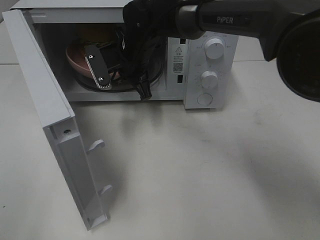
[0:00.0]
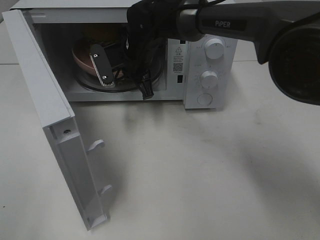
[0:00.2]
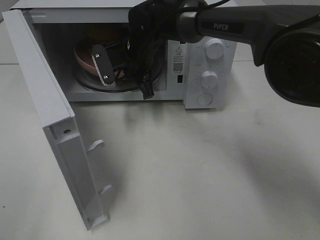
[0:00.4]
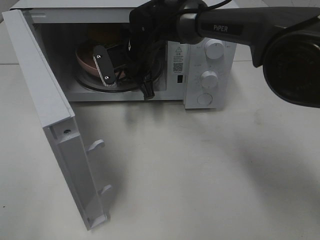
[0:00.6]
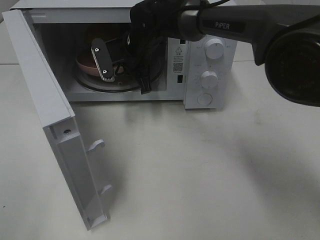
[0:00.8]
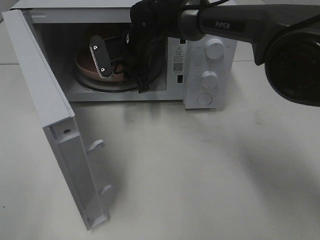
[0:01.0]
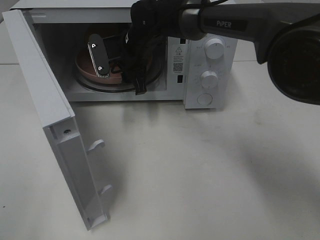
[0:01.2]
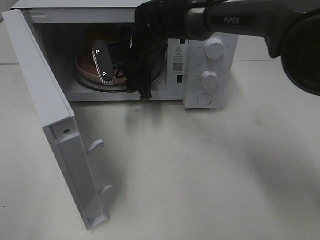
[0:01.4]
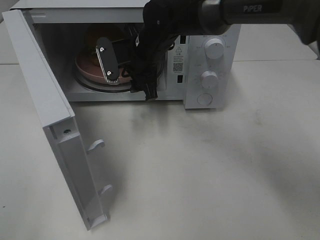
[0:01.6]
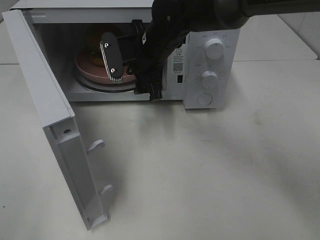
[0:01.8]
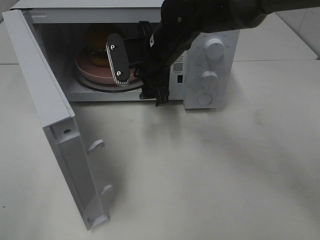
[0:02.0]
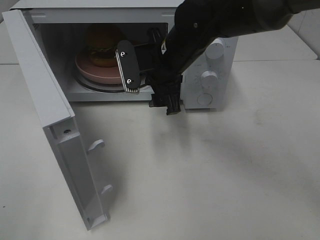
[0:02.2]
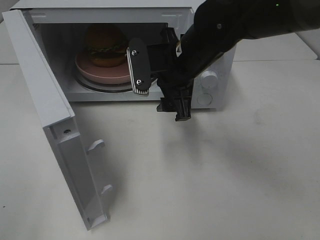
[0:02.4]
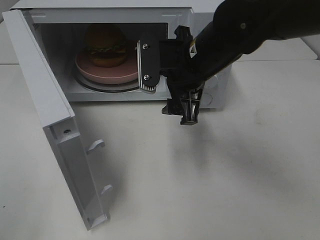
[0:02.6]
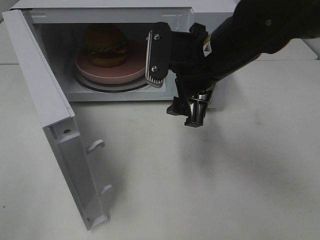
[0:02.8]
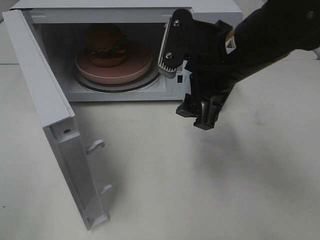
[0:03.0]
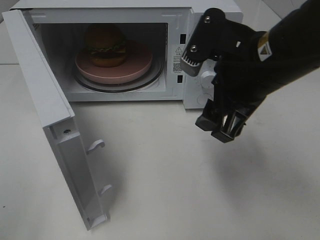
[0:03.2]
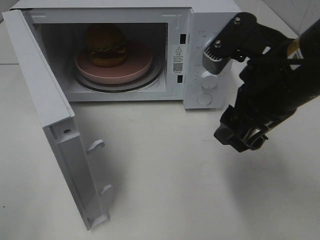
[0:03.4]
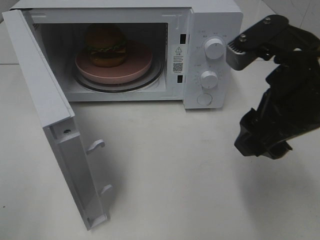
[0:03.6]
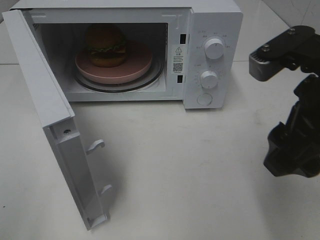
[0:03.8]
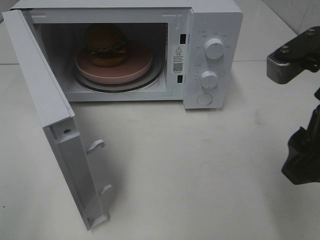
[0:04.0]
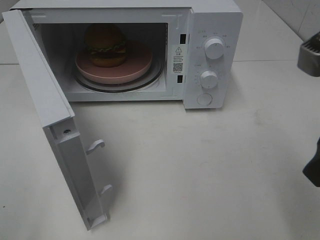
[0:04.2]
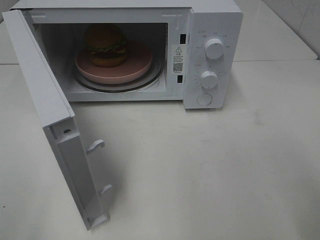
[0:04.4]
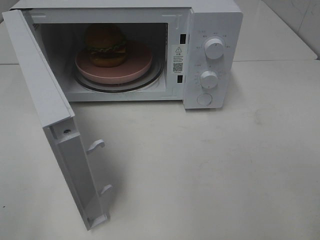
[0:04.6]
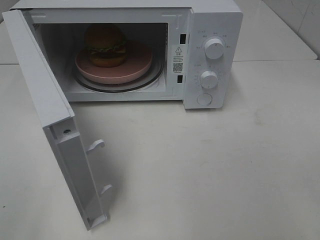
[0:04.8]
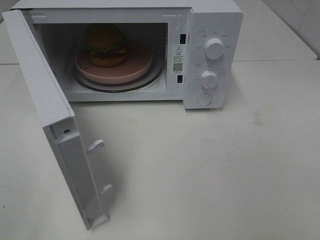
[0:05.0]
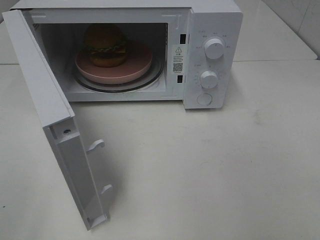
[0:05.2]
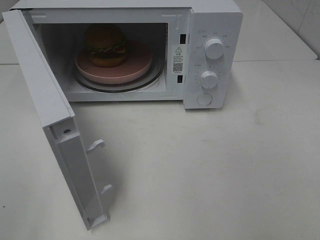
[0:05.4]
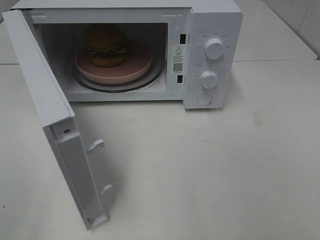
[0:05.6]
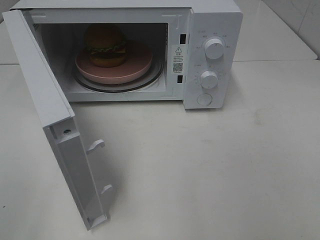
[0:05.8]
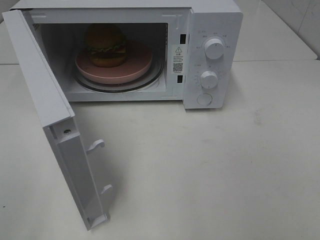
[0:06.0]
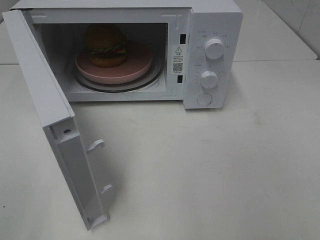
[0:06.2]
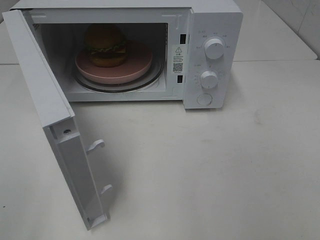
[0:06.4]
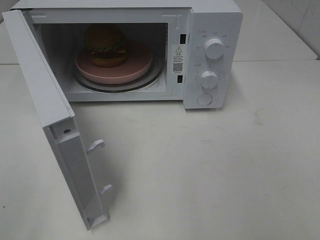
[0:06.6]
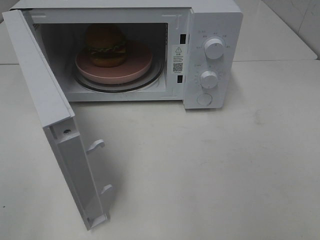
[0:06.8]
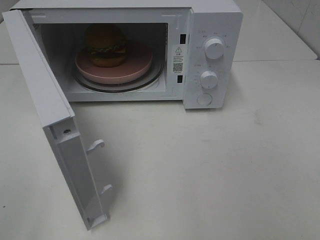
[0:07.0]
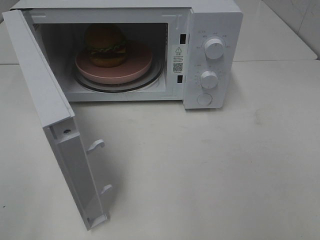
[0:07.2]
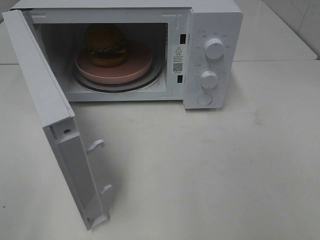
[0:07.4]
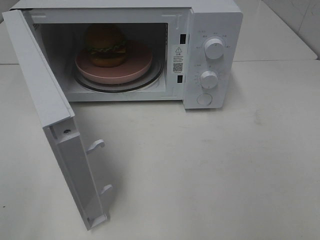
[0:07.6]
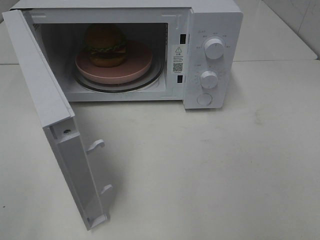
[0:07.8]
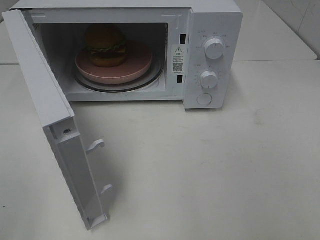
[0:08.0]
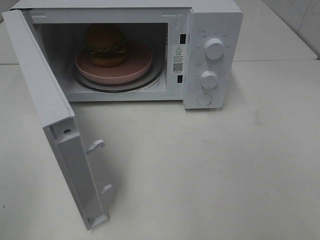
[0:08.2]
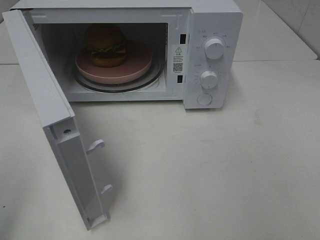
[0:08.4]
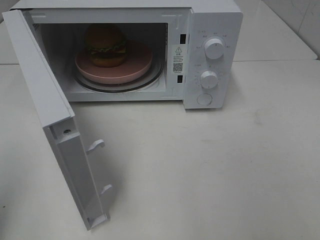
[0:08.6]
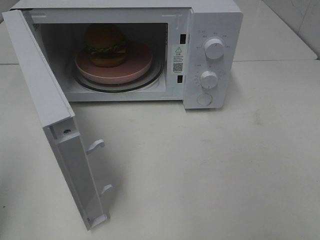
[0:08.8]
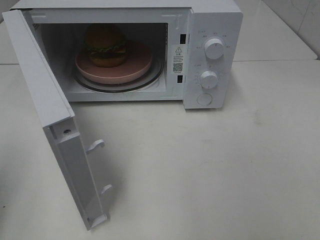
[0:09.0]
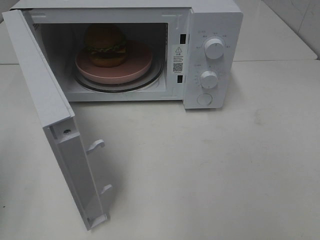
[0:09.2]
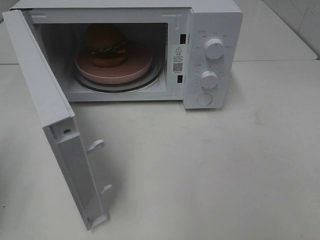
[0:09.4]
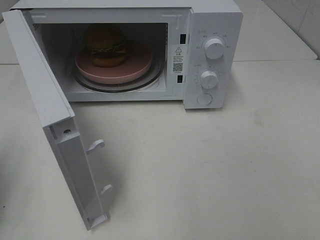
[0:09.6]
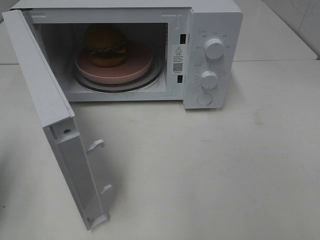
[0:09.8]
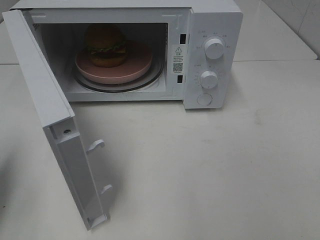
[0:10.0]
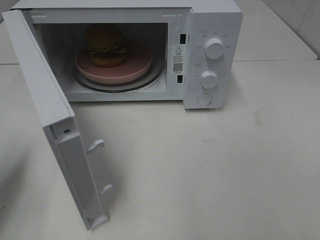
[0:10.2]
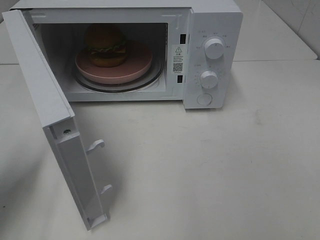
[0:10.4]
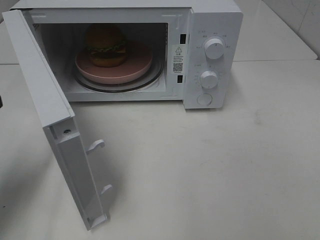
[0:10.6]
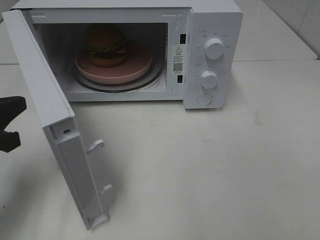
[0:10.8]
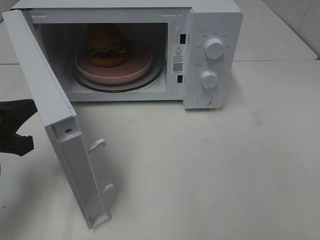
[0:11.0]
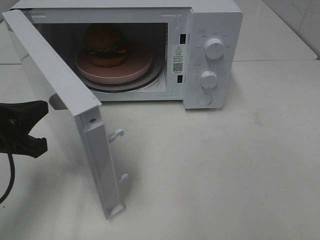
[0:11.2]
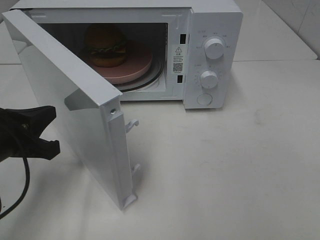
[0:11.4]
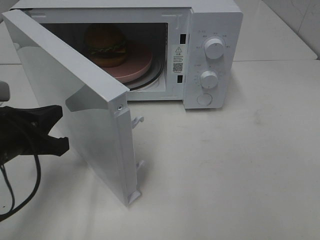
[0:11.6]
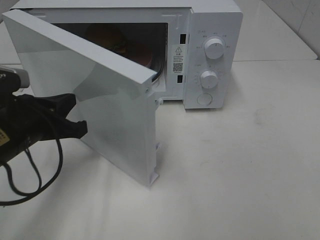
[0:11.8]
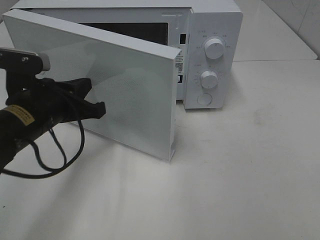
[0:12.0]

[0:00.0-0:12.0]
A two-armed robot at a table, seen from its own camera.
Task of the whole recording: Heat the burger.
0:00.0 to 0:01.6: The right gripper opens.
0:01.6 to 0:03.0: The right gripper travels backward, to the right and upward by some 20 cm.
0:03.0 to 0:04.4: The right gripper travels backward and to the right by about 20 cm.
0:04.4 to 0:06.0: The right gripper shifts roughly 15 cm backward and to the right.
0:06.0 to 0:07.6: Neither gripper changes place.
0:09.0 to 0:10.4: The left gripper travels forward and downward by roughly 10 cm.
0:10.4 to 0:12.0: The left gripper travels to the right and forward by roughly 15 cm.

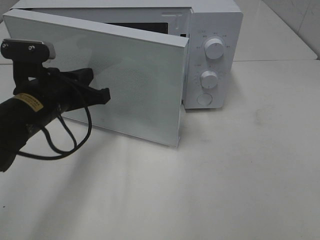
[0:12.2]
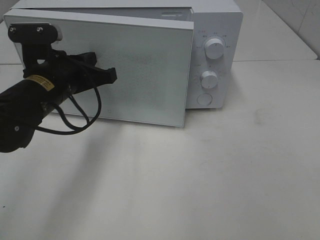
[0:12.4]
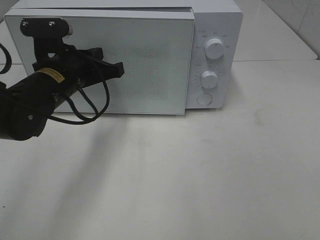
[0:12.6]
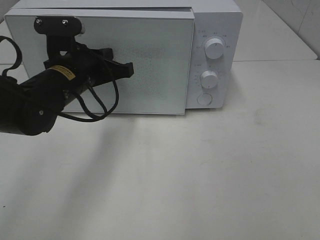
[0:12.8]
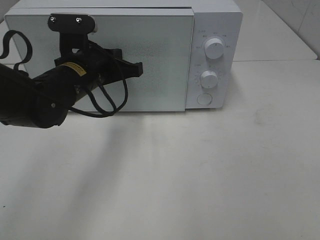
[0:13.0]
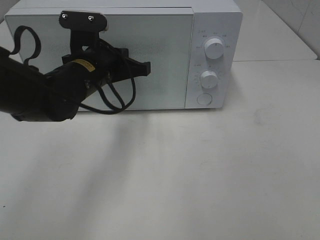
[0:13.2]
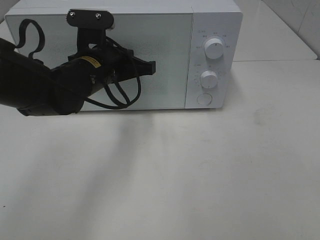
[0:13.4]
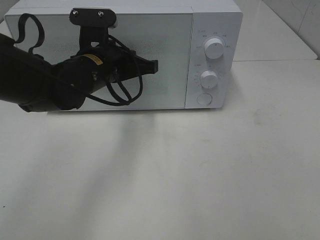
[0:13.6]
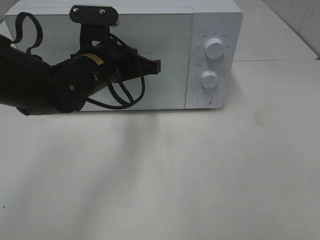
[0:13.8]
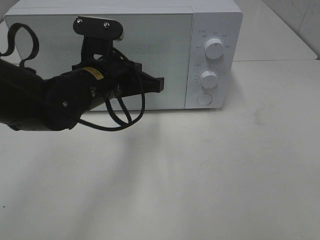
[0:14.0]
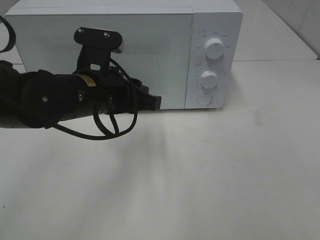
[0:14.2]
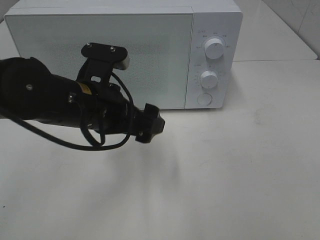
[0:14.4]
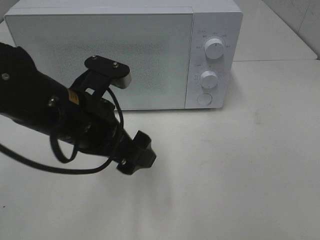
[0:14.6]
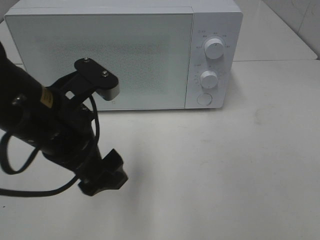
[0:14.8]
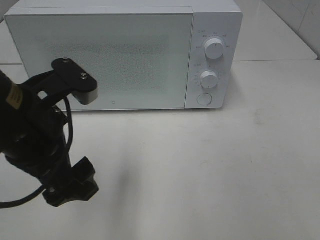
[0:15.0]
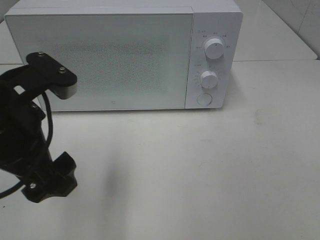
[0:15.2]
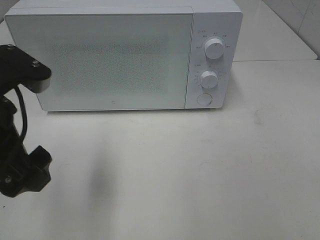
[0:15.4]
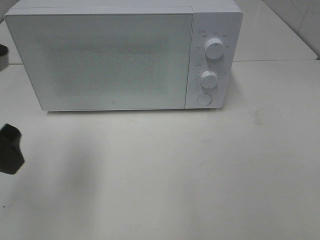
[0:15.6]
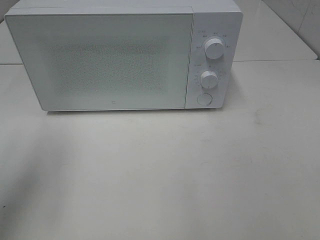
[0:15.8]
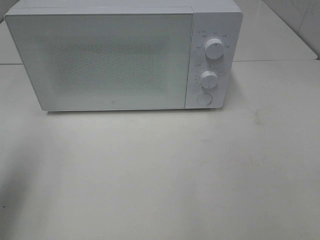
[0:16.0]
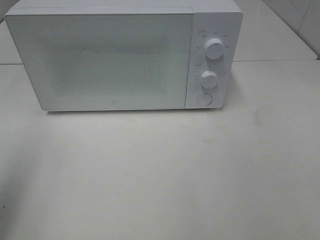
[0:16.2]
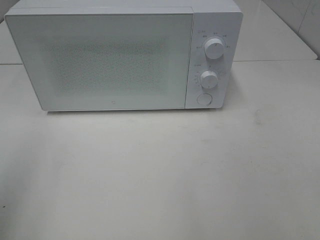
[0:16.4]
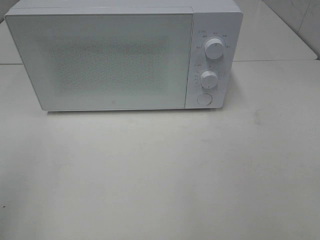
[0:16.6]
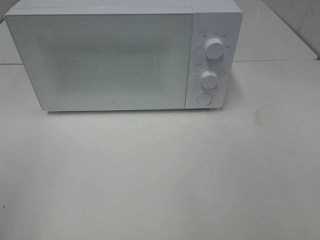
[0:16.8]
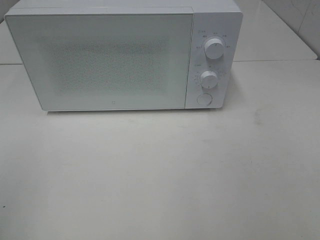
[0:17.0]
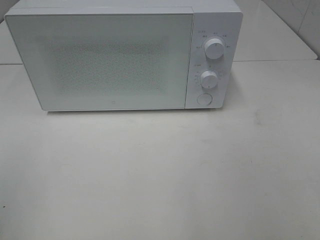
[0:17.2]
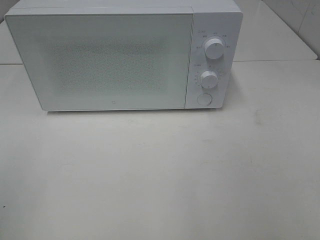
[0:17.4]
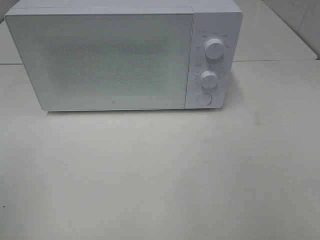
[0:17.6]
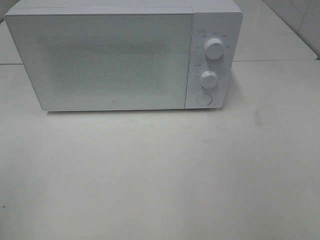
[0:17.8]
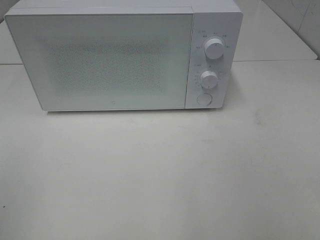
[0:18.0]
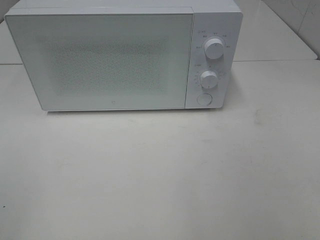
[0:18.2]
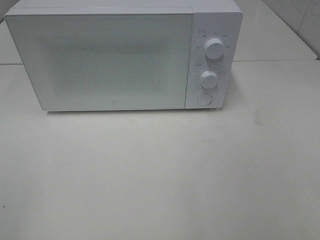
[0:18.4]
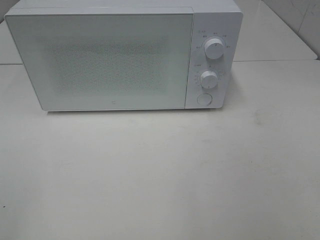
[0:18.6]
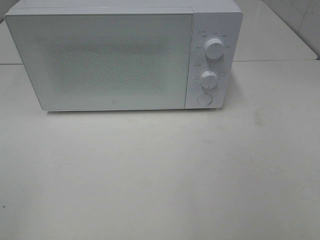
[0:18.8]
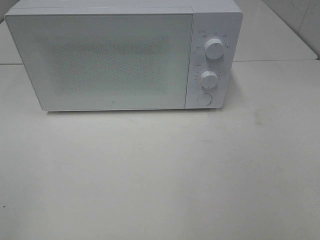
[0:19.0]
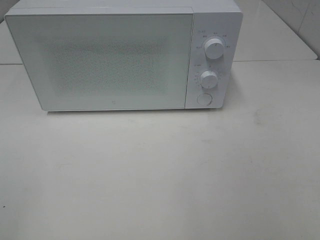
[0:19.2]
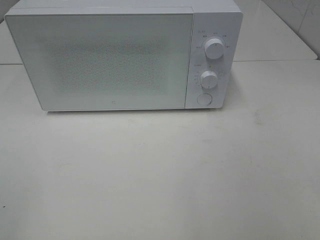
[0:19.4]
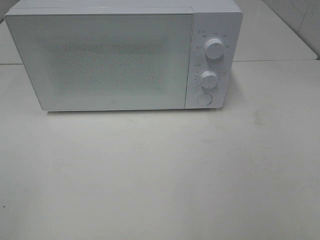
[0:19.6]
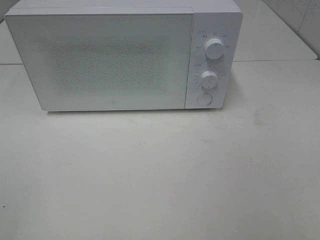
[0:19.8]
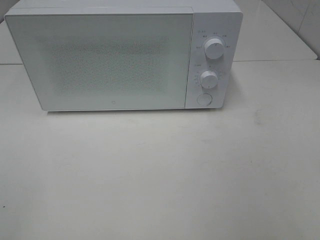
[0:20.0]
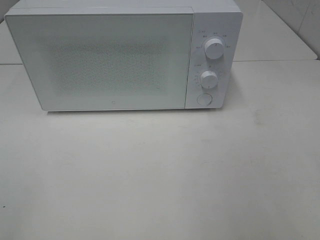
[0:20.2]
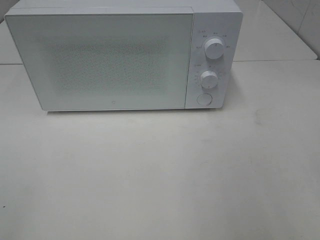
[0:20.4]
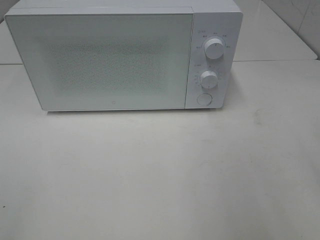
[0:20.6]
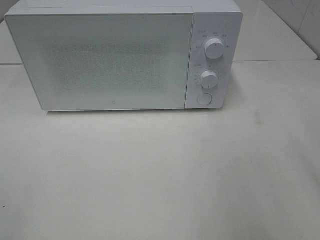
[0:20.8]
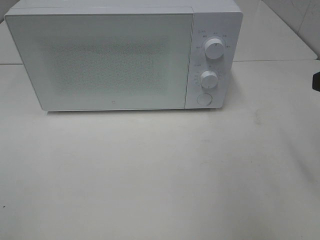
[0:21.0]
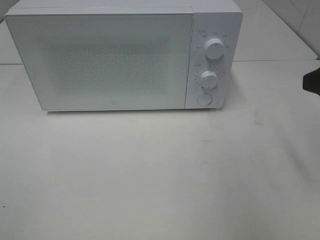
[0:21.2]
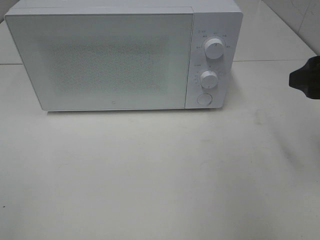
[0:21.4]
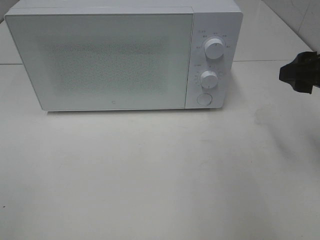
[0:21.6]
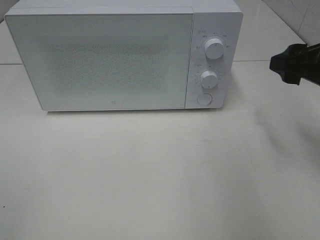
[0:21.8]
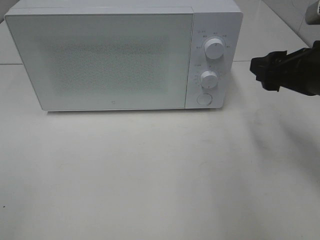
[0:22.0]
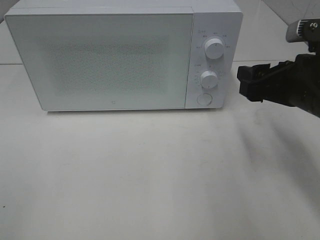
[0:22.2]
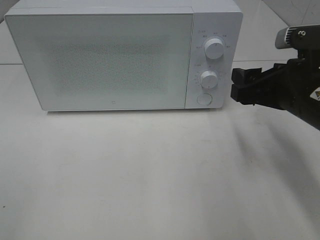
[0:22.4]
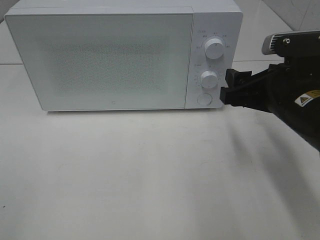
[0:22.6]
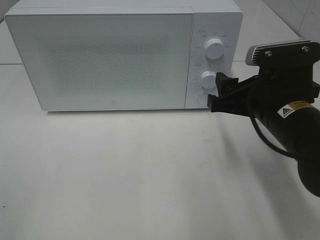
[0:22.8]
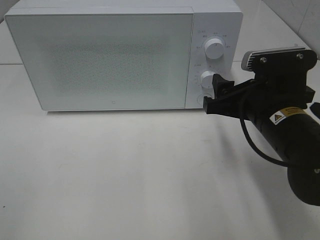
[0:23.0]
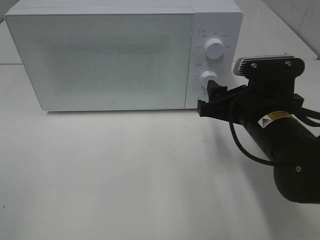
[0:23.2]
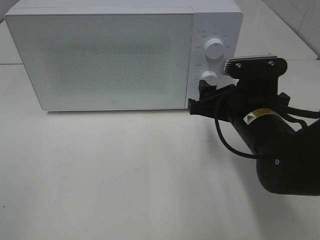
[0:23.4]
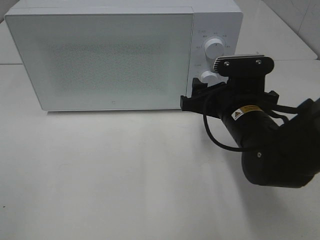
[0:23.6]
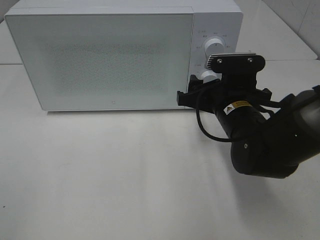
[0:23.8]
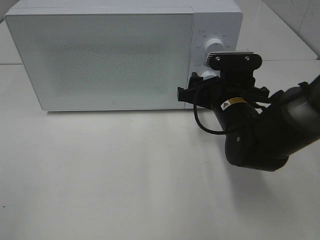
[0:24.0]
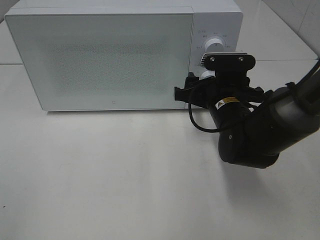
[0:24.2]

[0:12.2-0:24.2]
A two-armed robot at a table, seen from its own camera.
Task of the whole recording: Heat the burger.
Step, 0:12.2 to 0:14.2: Left hand: close the microwave door.
0:12.2 to 0:13.8: The left gripper shifts about 10 cm to the right.
0:13.8 to 0:15.2: The left gripper goes some 15 cm backward, to the left and upward, and opens.
0:15.2 to 0:16.6: The left gripper heads to the left, backward and upward, covering roughly 20 cm.
0:21.2 to 0:22.6: The right gripper shifts approximately 10 cm to the left and downward.
0:22.6 to 0:24.2: The right gripper shifts some 10 cm forward, downward and to the left.
